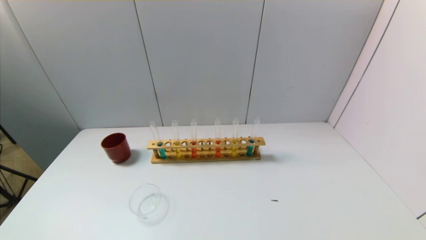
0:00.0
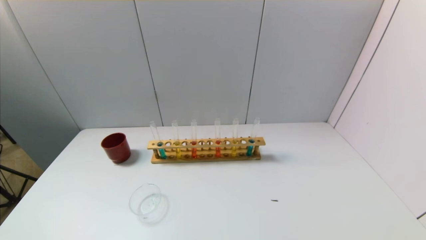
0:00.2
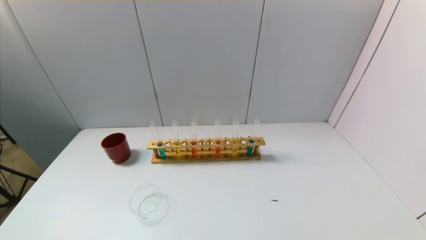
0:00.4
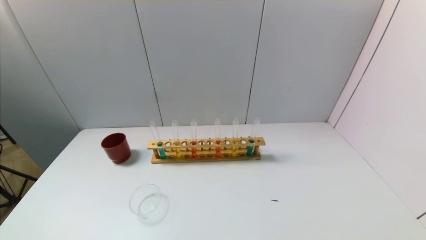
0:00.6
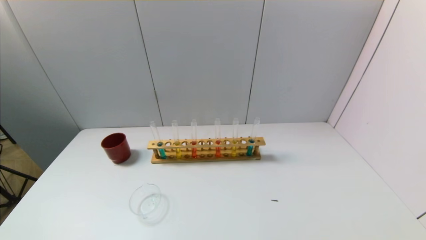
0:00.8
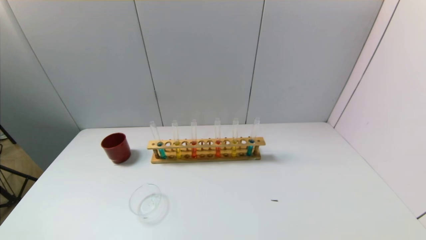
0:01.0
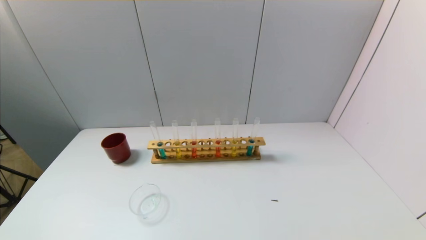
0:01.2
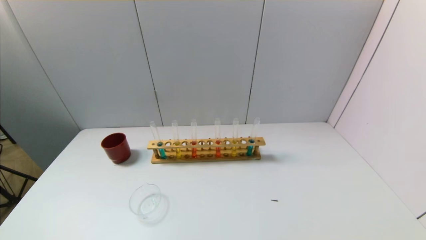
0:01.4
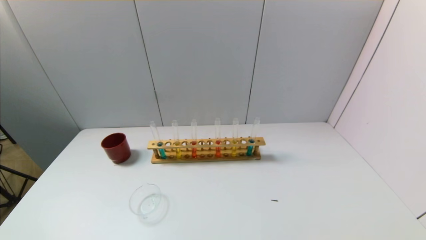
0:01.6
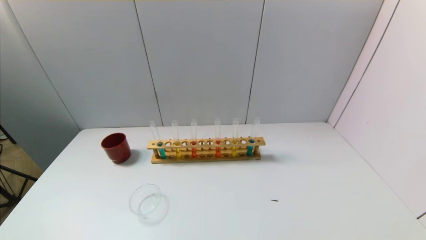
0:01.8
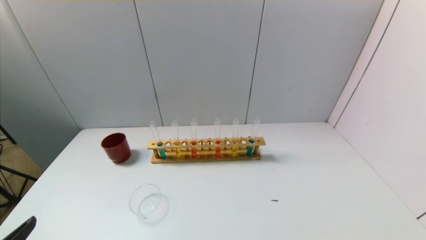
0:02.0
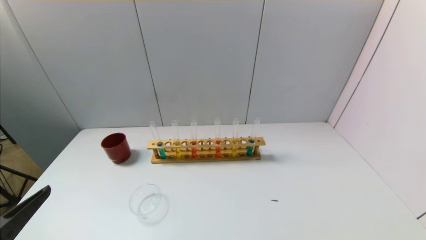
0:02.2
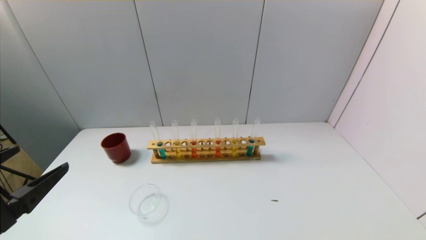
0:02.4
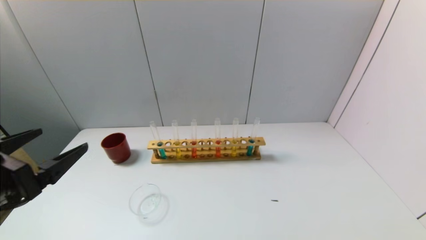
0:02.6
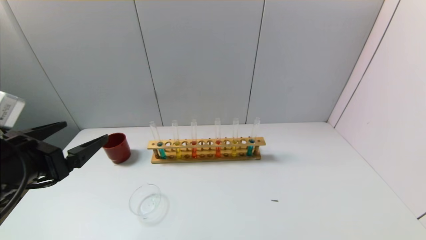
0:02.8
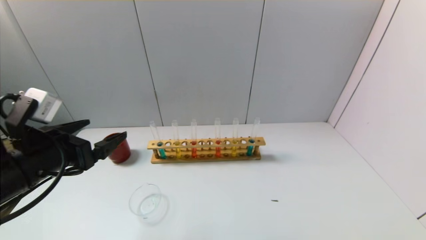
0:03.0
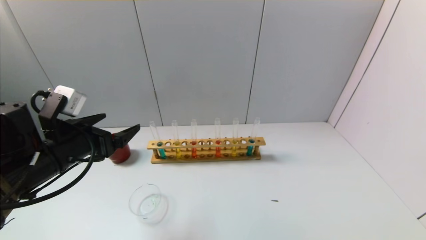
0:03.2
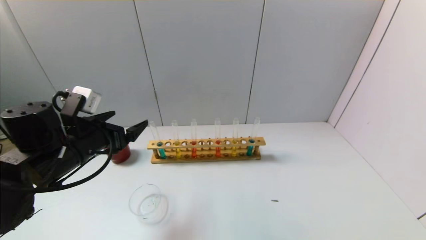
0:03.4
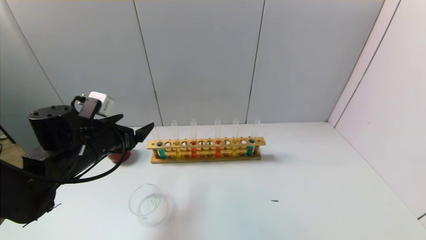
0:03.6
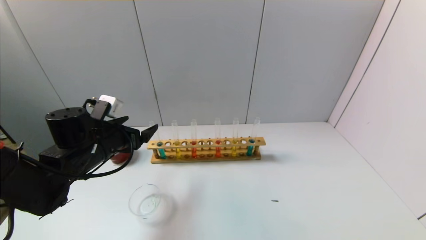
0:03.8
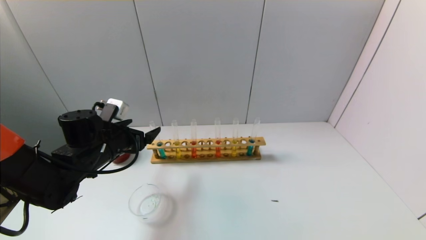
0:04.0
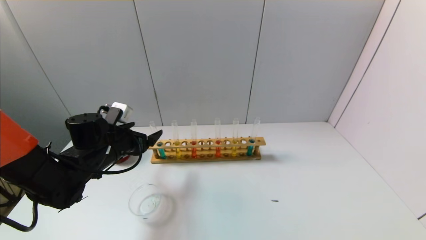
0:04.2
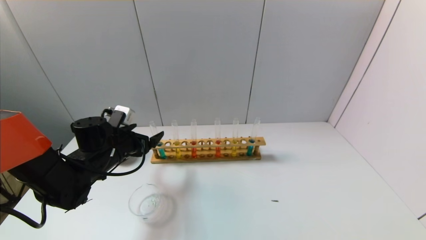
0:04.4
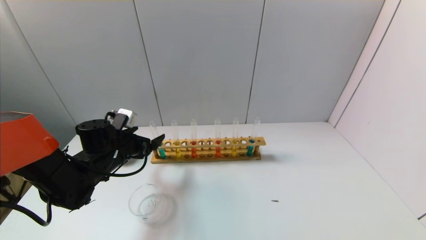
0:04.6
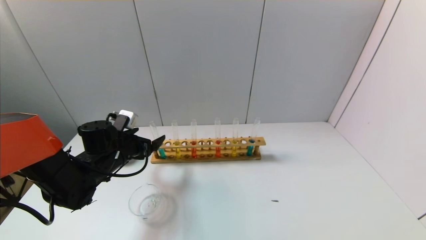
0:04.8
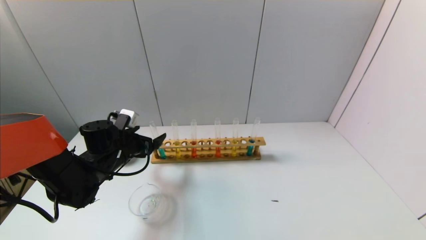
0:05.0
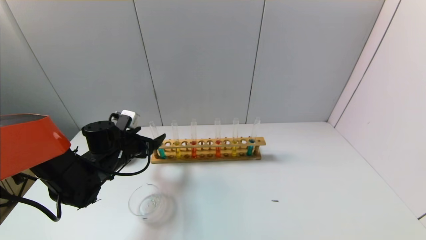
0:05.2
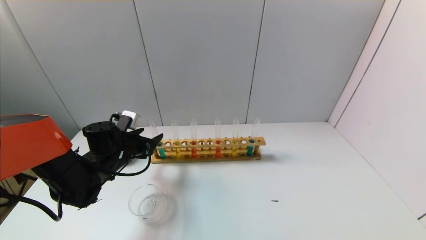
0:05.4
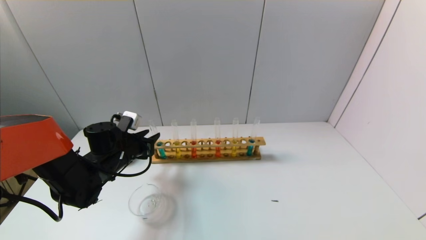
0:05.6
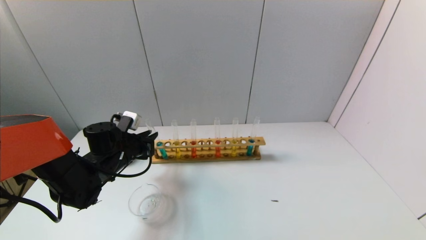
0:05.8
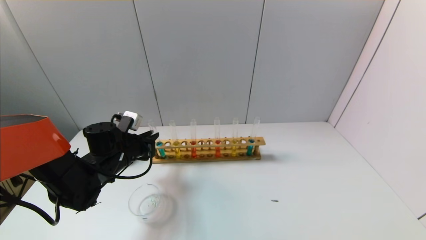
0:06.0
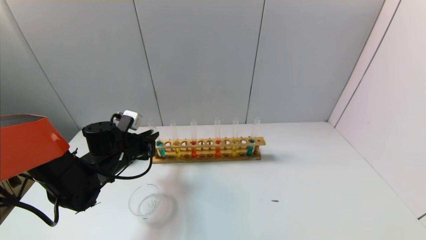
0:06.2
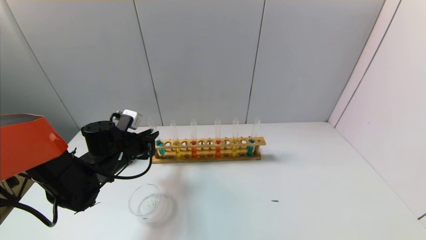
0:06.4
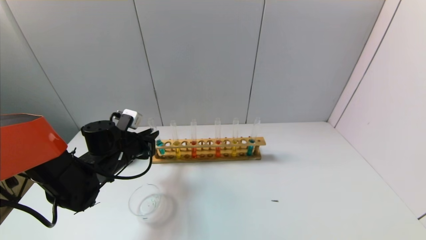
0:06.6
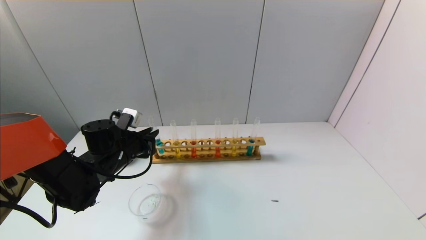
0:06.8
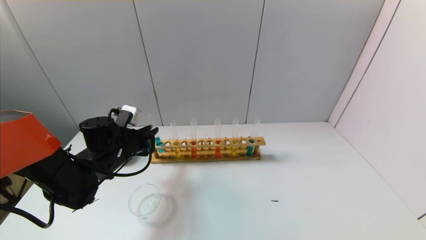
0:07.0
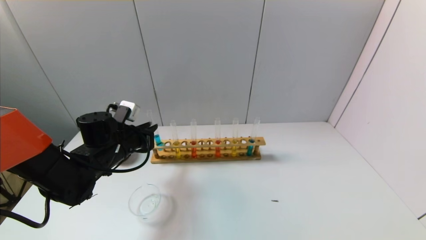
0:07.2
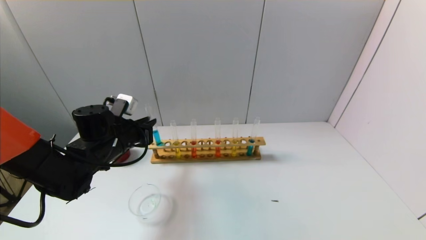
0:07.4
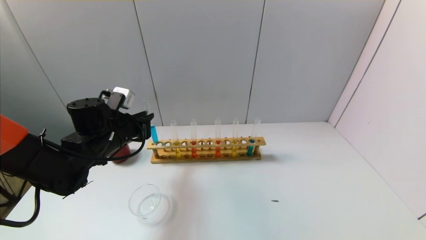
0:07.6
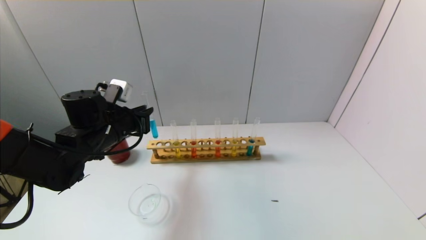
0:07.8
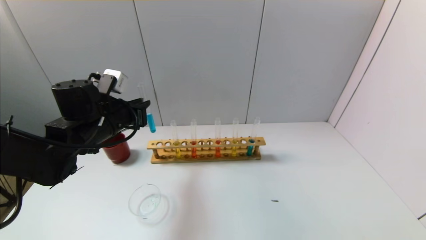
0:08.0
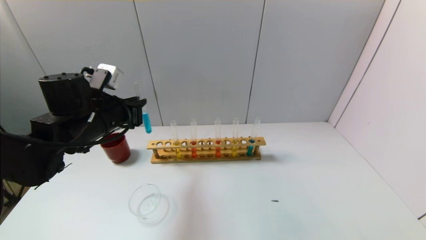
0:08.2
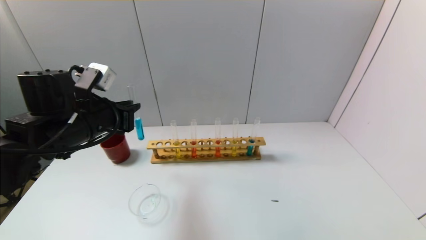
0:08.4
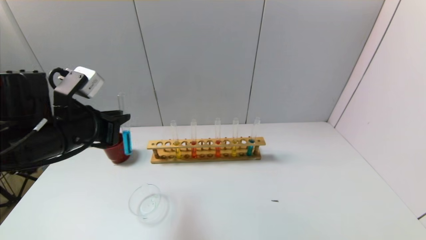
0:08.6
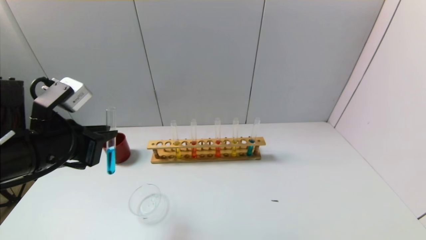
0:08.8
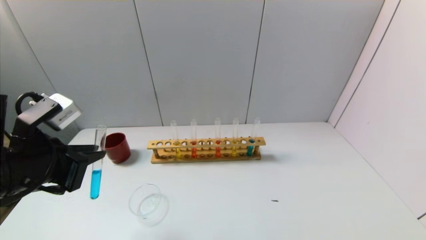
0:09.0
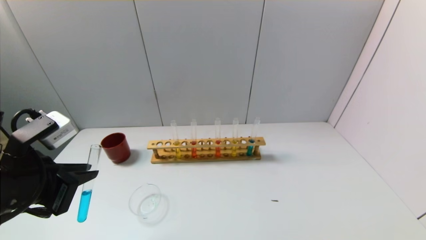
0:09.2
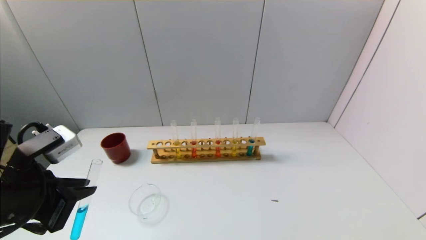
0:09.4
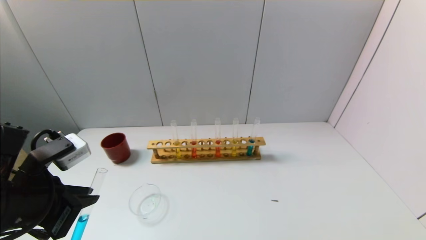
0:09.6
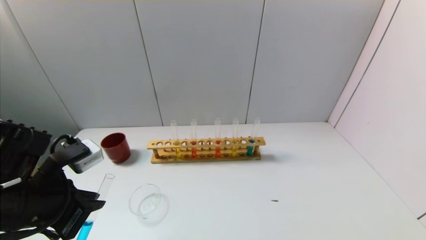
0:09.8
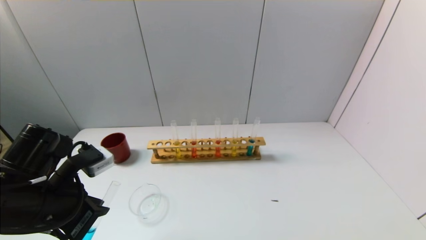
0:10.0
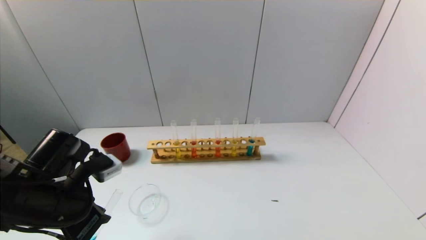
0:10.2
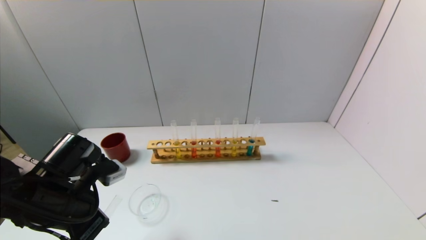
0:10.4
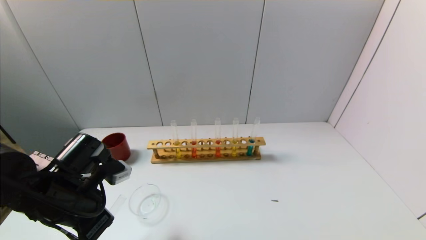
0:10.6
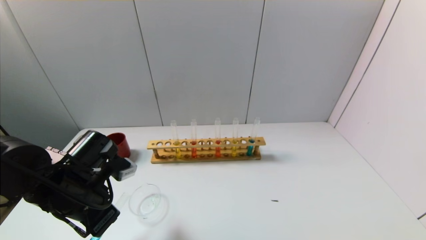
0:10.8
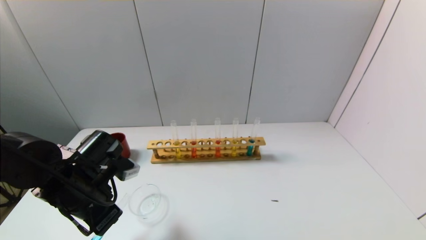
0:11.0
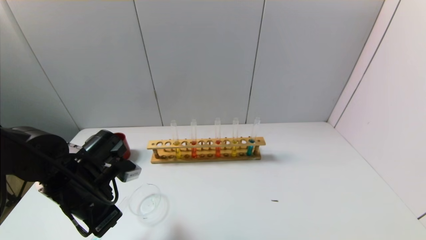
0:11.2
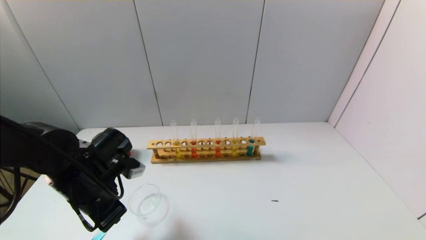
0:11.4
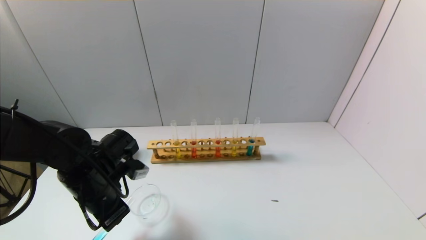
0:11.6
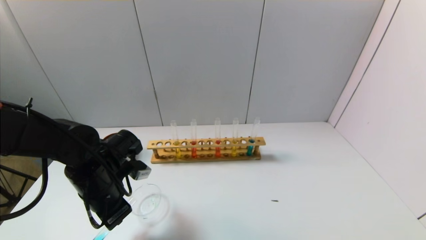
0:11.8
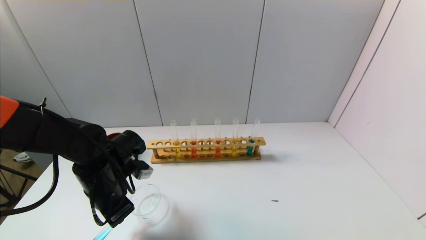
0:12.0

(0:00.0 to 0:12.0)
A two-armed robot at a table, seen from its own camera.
Task of the whole recording: pick up the test tube with yellow pigment and the test tube with blue pigment by grippers and pour them into the beaker.
Step, 0:00.0 - 0:06.0: Grasp the blue reagent with the left gripper.
0:01.6 - 0:03.0: The left gripper moves forward, about 20 cm.
0:03.0 - 0:04.4: The left gripper moves forward and downward, roughly 15 cm.
0:04.4 - 0:06.0: The left gripper closes its fingers.
0:06.0 - 0:07.6: The left gripper shifts about 5 cm upward.
0:07.6 - 0:09.0: The left gripper travels backward and upward by some 20 cm.
0:09.0 - 0:10.4: The left gripper travels downward by roughly 10 cm.
0:10.4 - 0:12.0: The left gripper travels forward by about 5 cm.

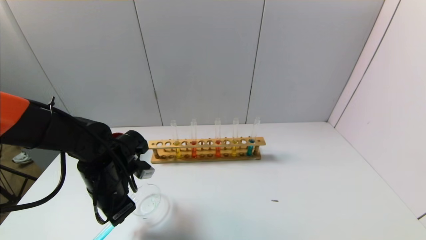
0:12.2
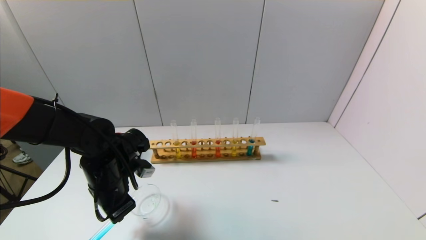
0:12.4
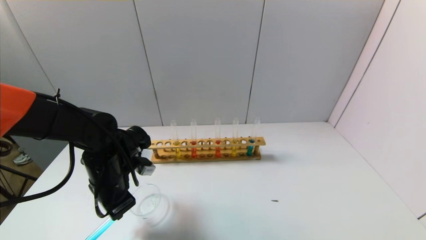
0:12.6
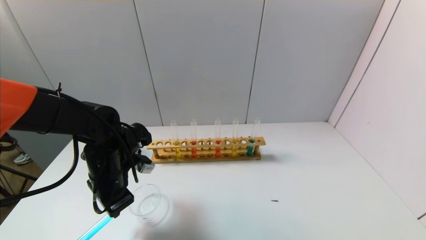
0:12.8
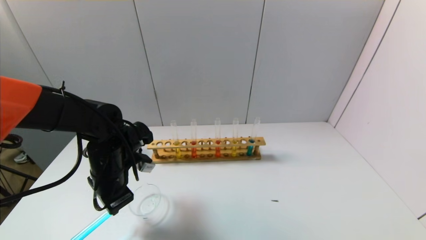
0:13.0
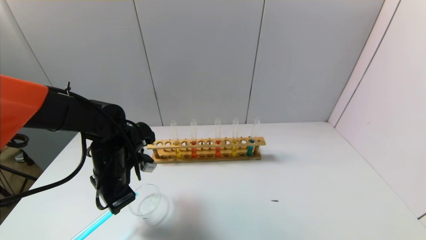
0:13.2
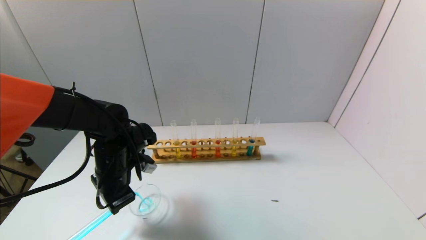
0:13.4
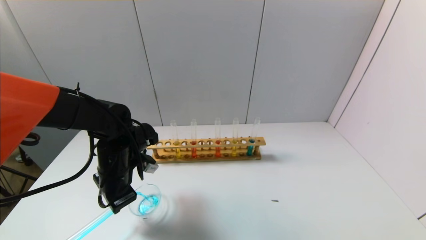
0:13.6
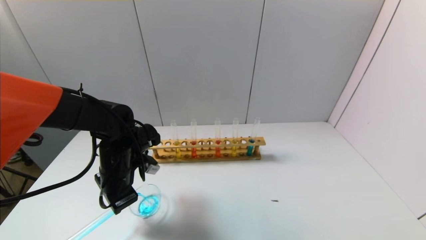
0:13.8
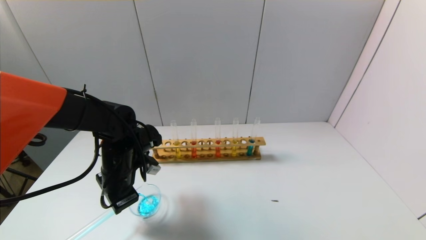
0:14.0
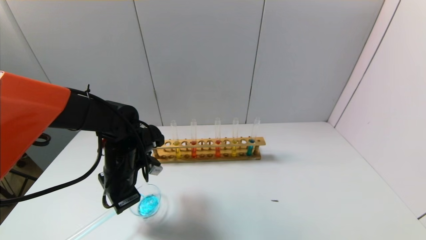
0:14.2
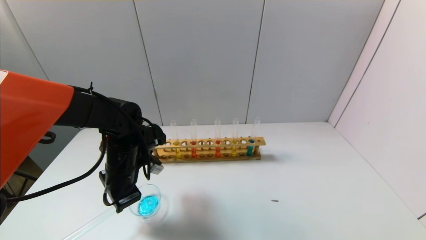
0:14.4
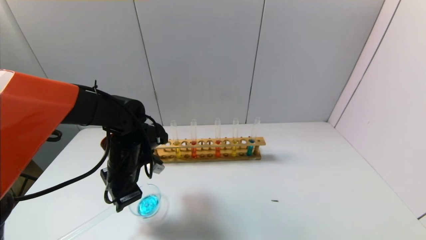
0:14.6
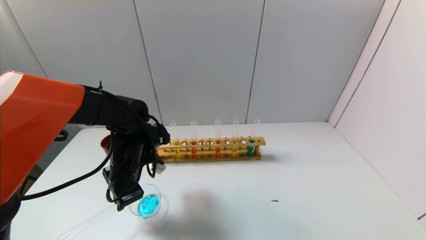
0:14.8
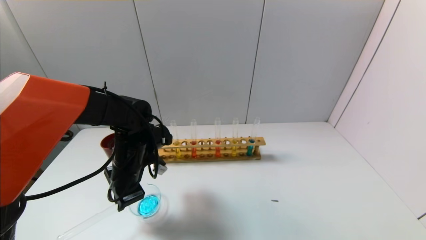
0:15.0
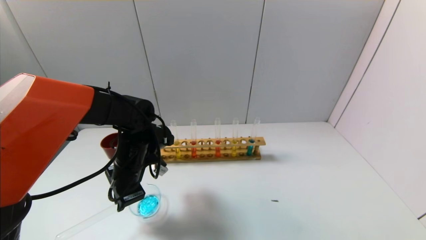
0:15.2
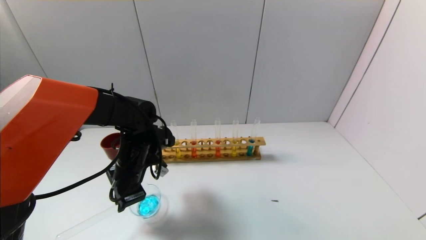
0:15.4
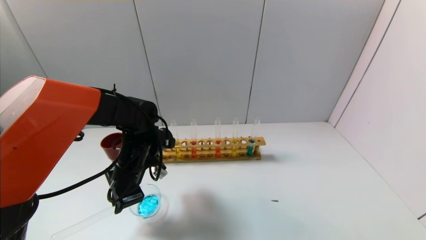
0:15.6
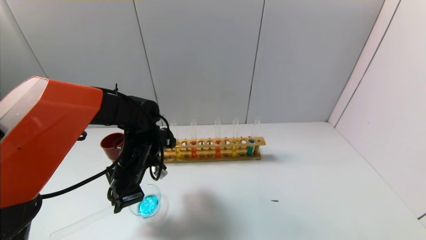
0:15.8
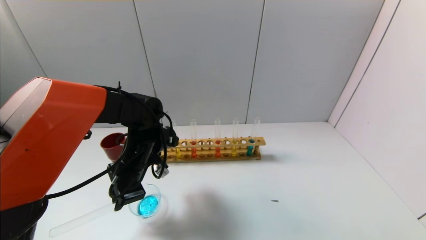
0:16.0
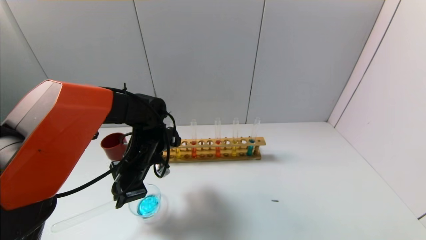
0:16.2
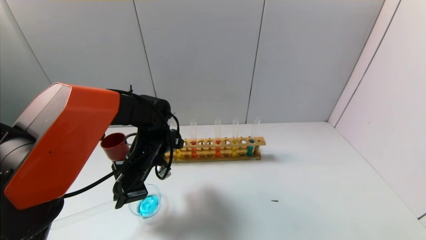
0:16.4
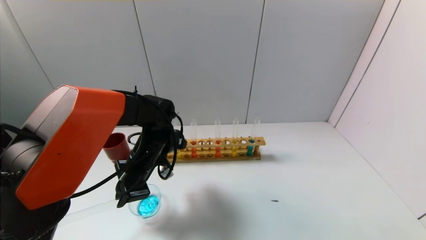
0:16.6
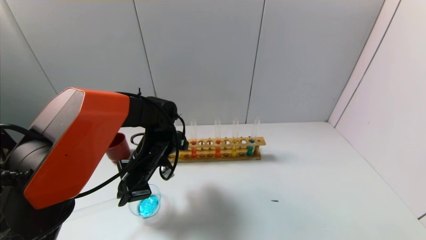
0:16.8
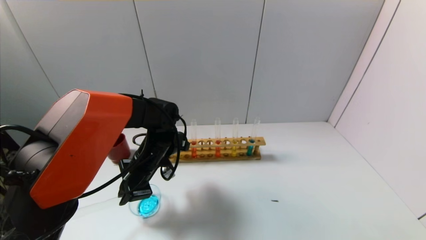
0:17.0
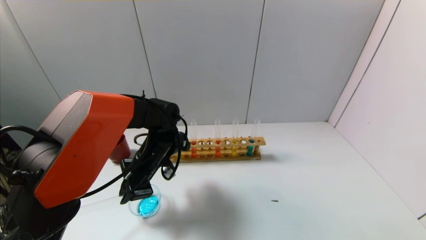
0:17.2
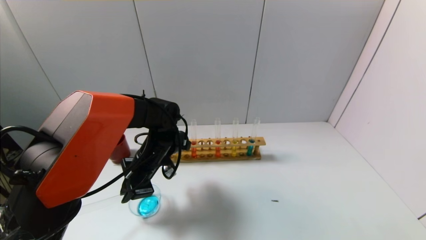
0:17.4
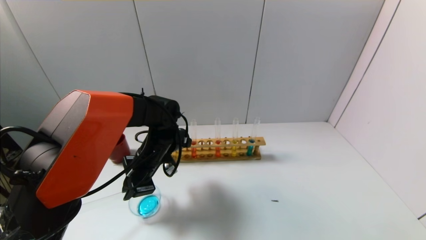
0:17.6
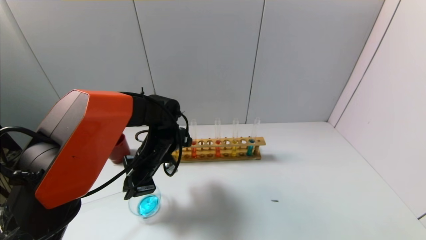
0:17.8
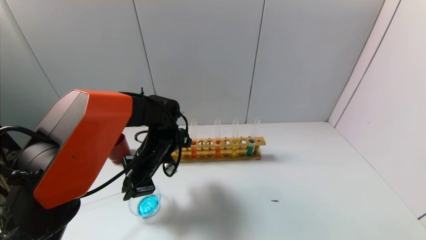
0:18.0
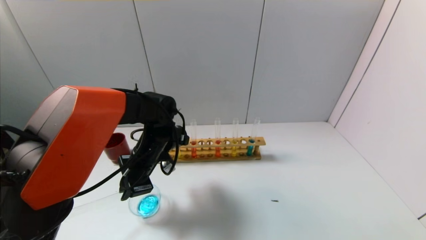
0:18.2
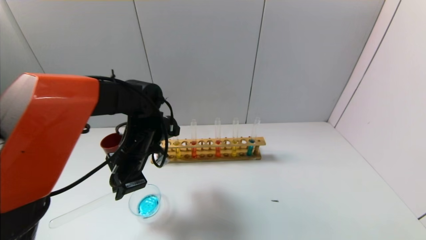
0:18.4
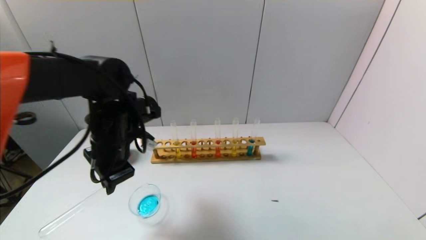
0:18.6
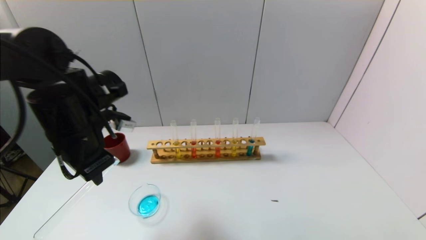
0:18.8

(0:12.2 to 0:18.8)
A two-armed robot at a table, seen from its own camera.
Task of the whole recording: pick up the test tube with yellow pigment and the test tube with blue pigment by grippers and pour them into the beaker.
Step, 0:12.2 - 0:17.0: Pour the blue reagent into the graduated cylinder with the left gripper.
0:12.2 - 0:13.8: The grippers make only small movements.
0:13.8 - 0:15.4: The grippers move only a little.
0:15.4 - 0:17.2: There are only small adjustments of the grippers.
0:17.2 - 0:18.8: The left gripper travels upward, to the left and backward by about 20 cm.
